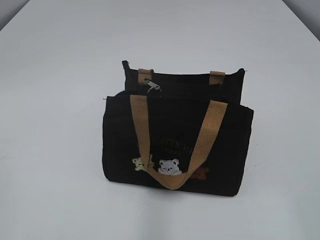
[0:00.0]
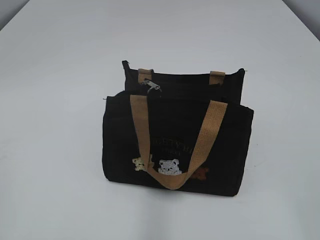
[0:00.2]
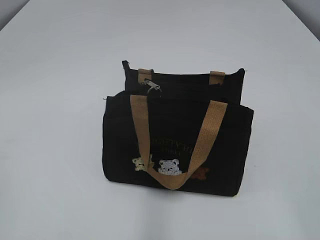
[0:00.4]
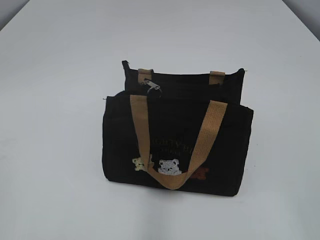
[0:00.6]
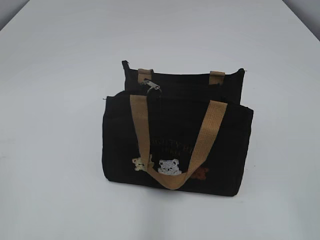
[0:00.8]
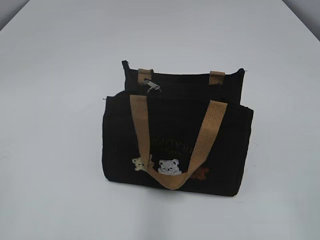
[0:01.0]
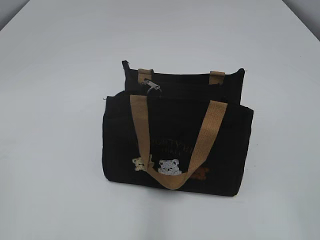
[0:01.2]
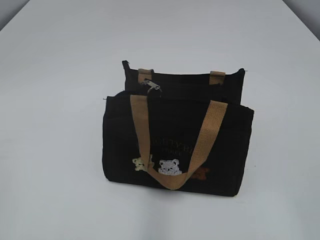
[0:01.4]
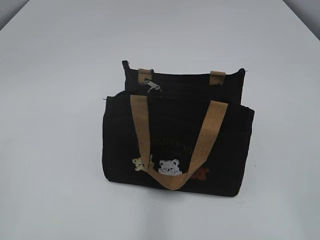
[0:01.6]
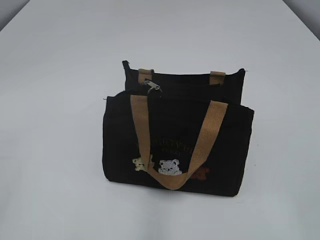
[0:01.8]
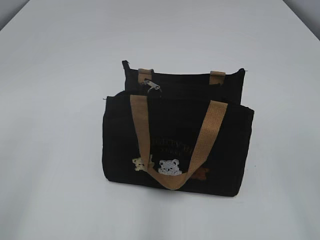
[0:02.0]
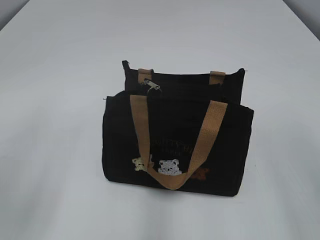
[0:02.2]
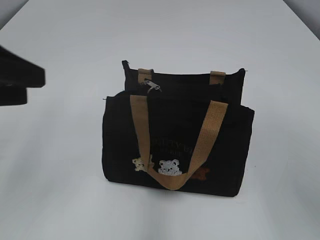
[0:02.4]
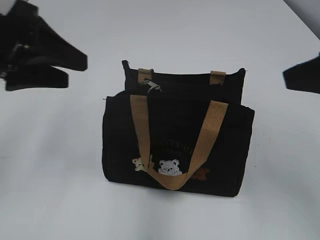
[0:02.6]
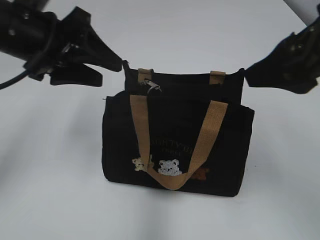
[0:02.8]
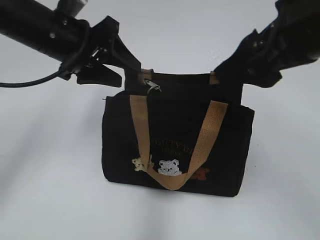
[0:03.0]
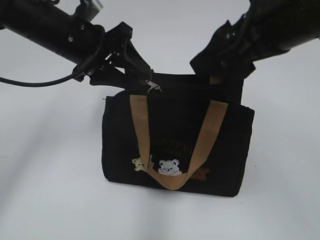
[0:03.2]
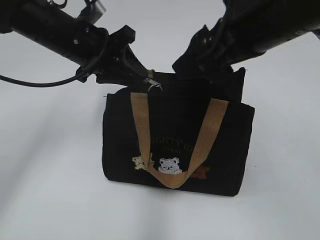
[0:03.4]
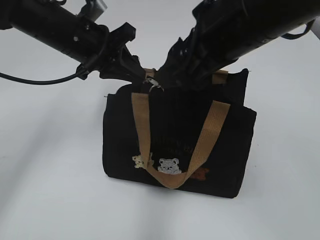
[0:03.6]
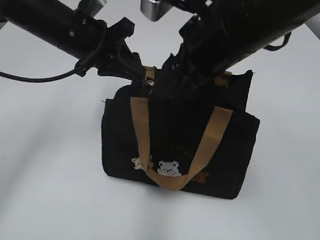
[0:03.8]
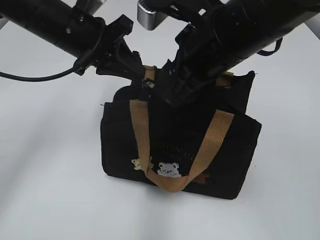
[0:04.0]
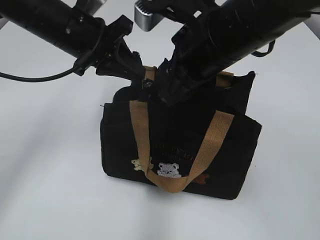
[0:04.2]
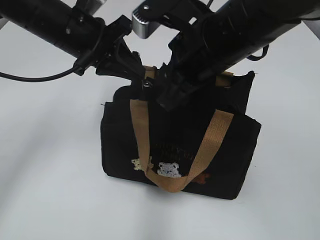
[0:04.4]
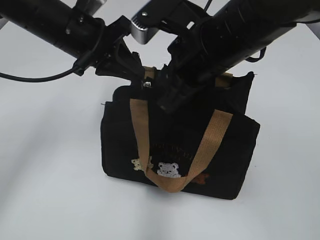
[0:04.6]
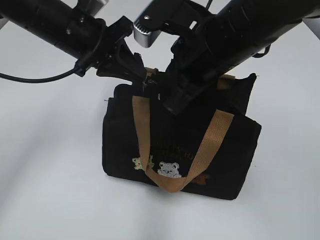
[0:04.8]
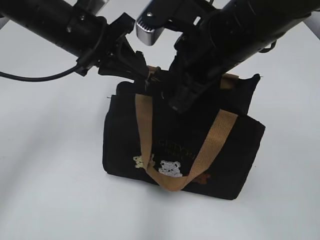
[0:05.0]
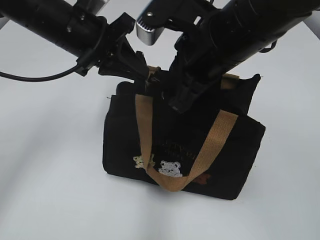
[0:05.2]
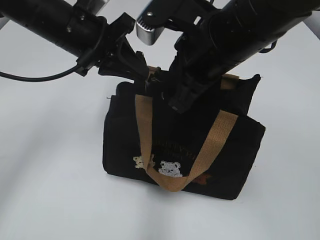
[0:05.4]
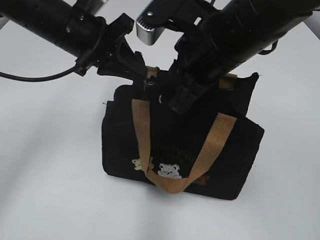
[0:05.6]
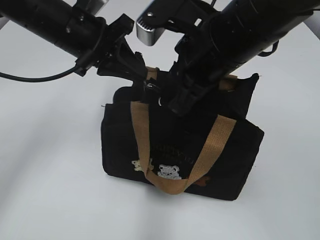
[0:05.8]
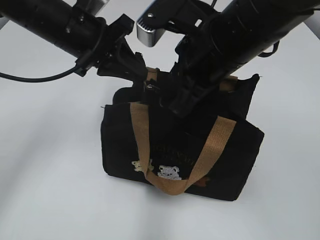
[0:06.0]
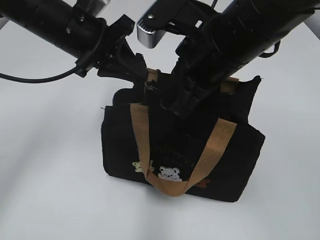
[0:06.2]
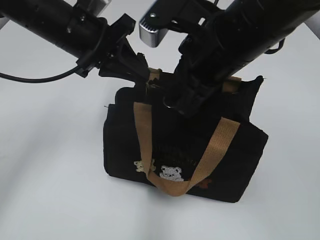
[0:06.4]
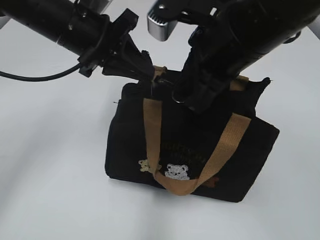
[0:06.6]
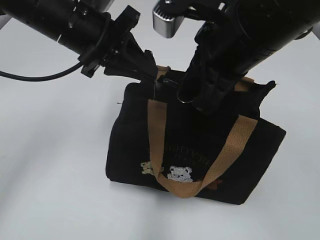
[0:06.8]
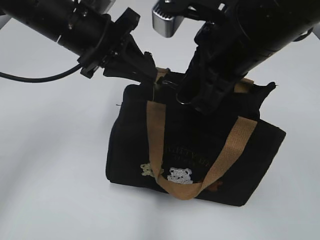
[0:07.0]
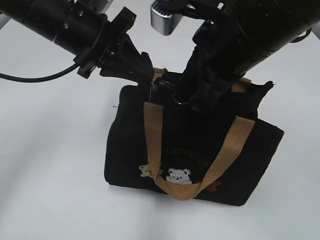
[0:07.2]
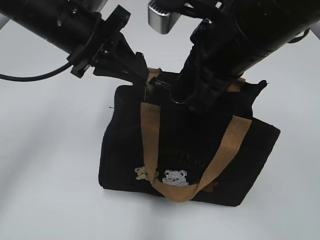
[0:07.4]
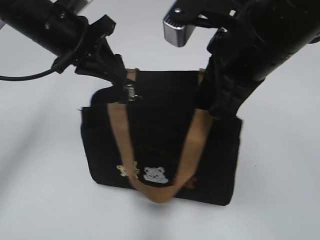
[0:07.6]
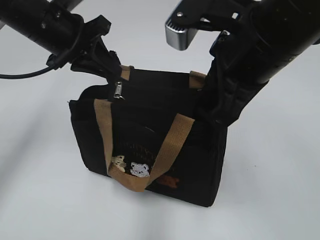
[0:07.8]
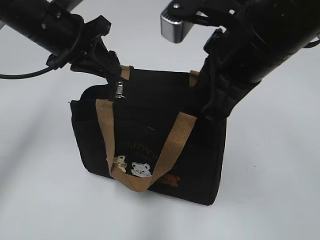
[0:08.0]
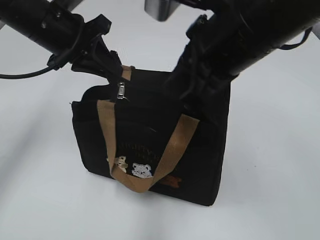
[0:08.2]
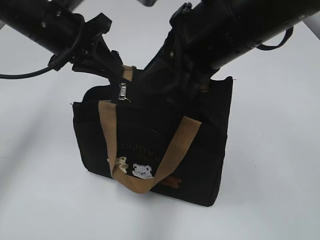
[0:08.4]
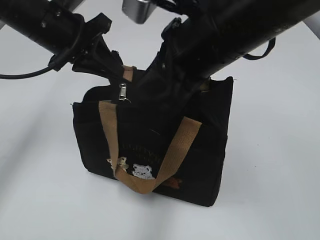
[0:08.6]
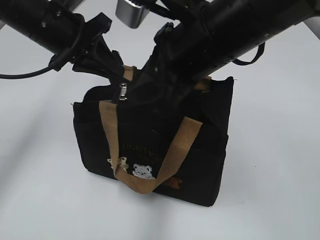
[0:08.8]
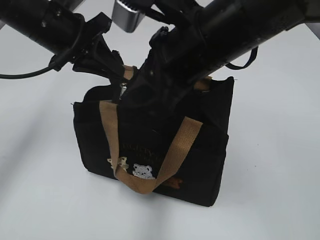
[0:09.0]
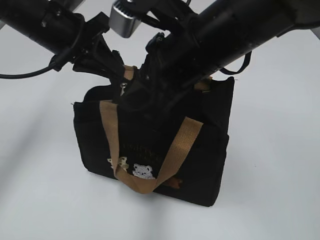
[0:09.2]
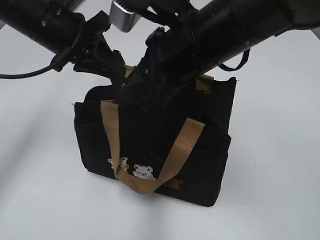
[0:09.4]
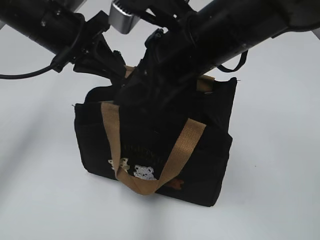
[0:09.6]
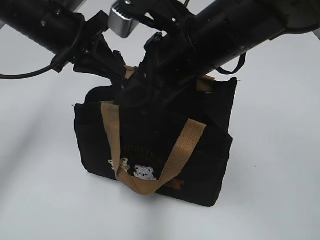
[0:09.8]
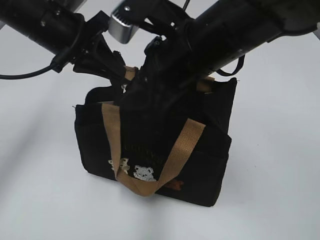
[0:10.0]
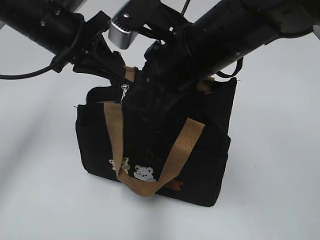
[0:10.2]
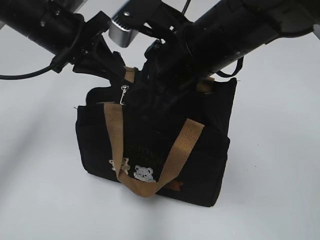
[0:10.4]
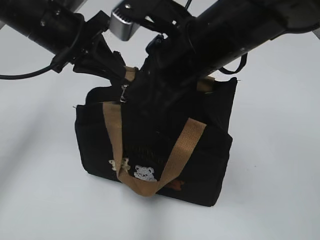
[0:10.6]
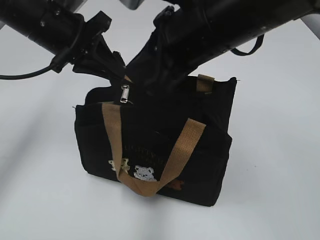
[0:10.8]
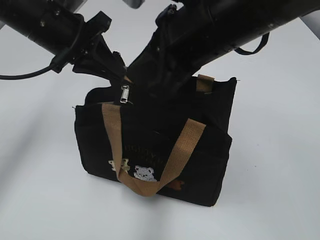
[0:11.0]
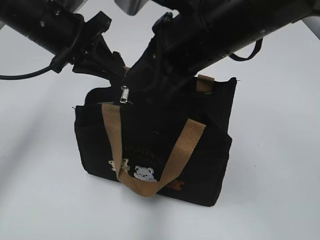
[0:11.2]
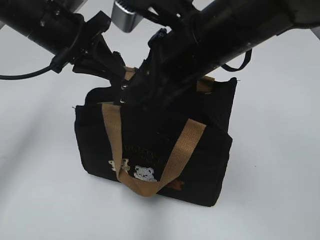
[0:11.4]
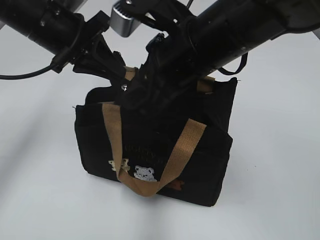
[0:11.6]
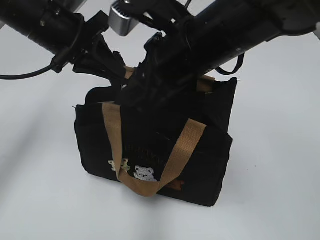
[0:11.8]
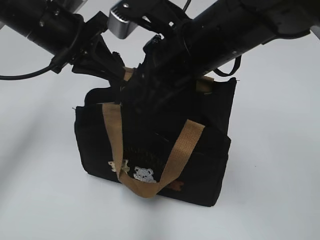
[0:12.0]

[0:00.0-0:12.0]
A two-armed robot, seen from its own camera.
0:01.6 to 0:03.0: The right gripper goes approximately 25 cm forward and to the left. Meanwhile the left gripper shifts about 35 cm forward and to the right, and opens its fingers.
0:03.0 to 0:04.4: The right gripper moves to the left and downward, some 10 cm, and closes its fingers; the left gripper closes.
0:04.4 to 0:06.0: The right gripper closes its fingers.
0:09.0 to 0:10.4: The grippers move only a little.
0:10.4 to 0:12.0: The right gripper opens.

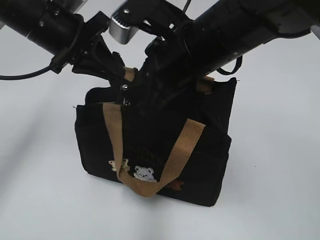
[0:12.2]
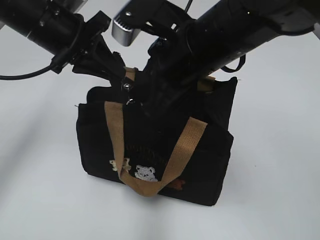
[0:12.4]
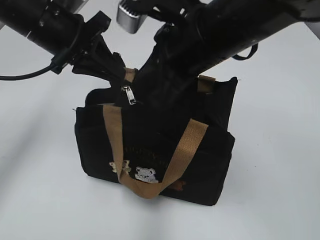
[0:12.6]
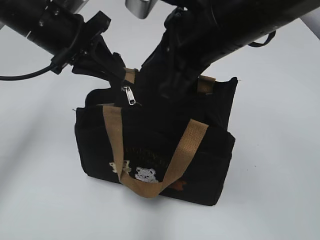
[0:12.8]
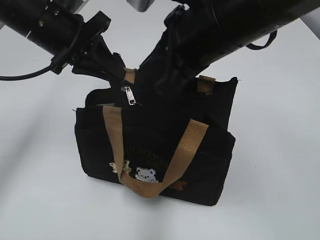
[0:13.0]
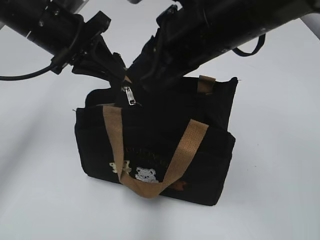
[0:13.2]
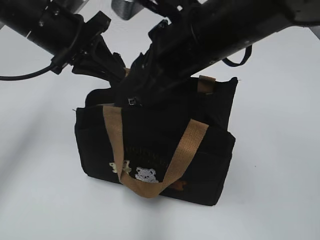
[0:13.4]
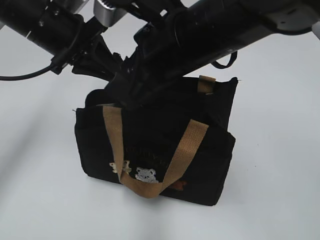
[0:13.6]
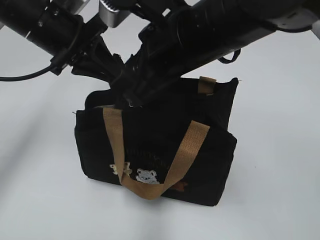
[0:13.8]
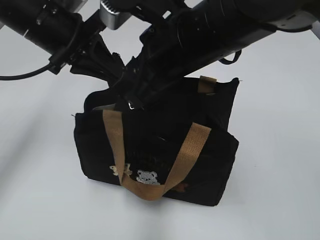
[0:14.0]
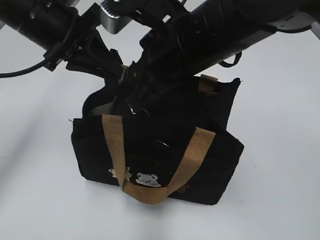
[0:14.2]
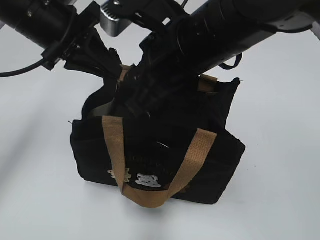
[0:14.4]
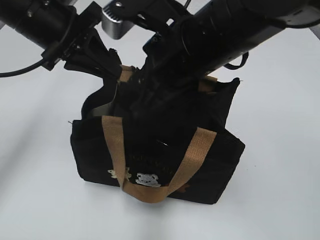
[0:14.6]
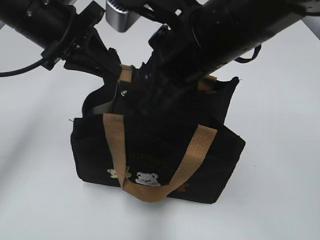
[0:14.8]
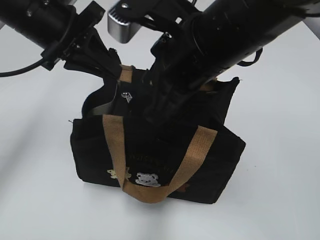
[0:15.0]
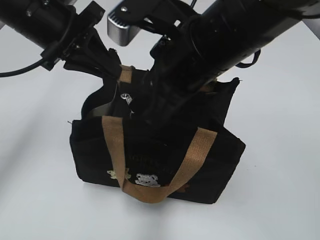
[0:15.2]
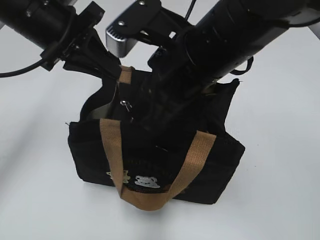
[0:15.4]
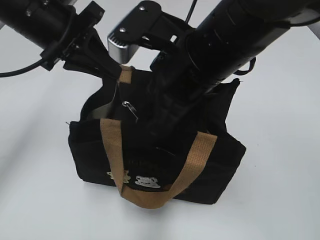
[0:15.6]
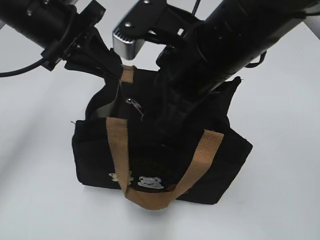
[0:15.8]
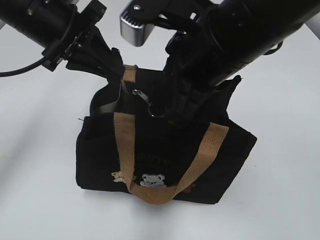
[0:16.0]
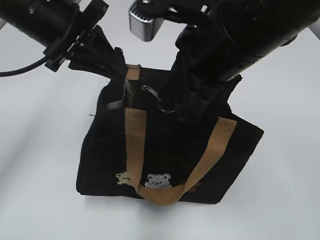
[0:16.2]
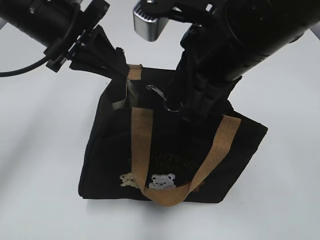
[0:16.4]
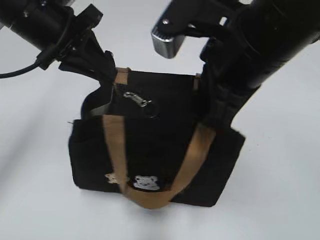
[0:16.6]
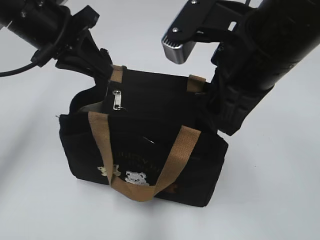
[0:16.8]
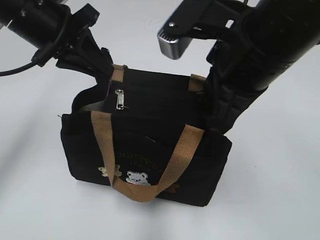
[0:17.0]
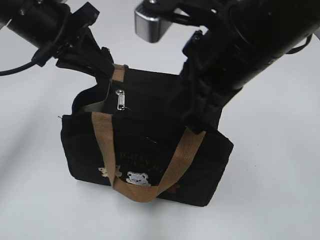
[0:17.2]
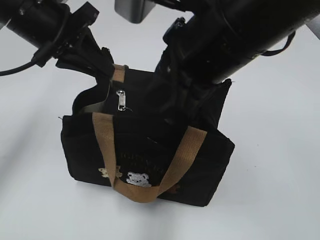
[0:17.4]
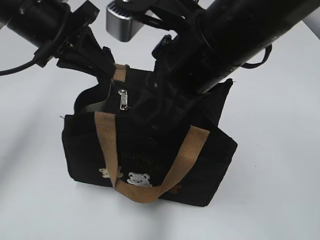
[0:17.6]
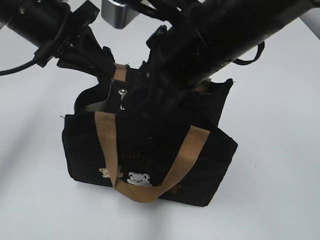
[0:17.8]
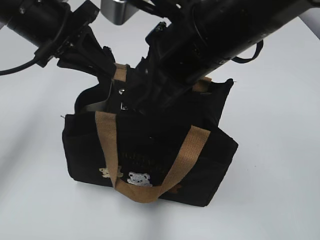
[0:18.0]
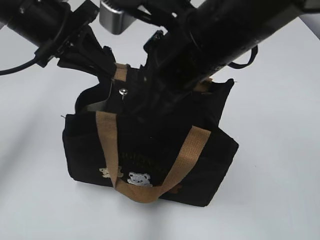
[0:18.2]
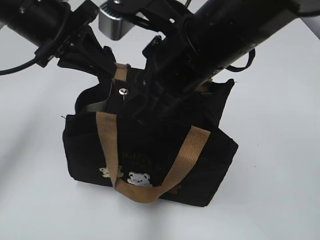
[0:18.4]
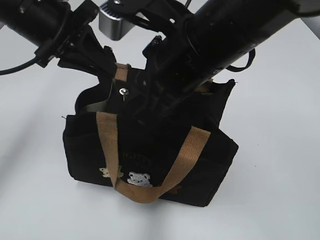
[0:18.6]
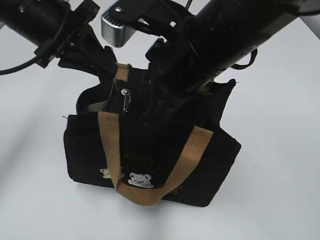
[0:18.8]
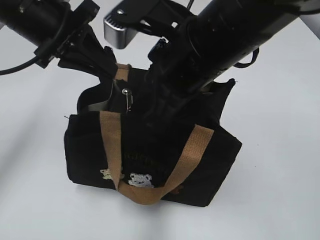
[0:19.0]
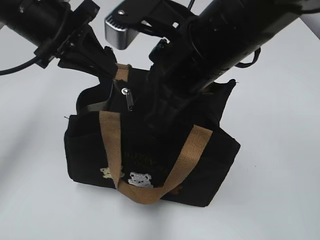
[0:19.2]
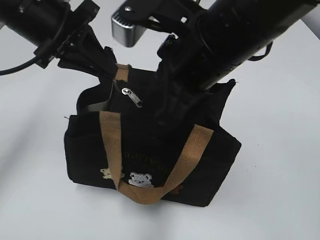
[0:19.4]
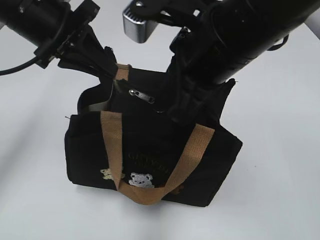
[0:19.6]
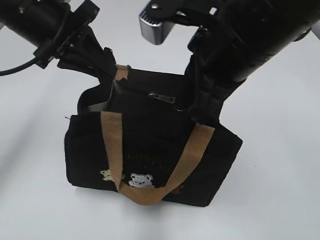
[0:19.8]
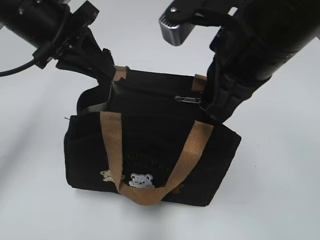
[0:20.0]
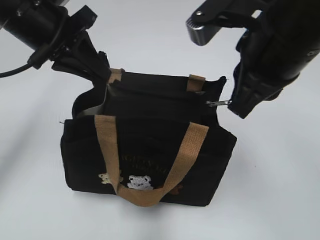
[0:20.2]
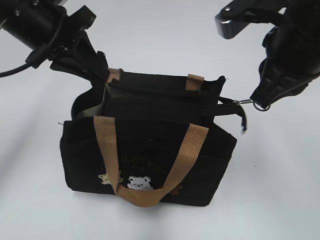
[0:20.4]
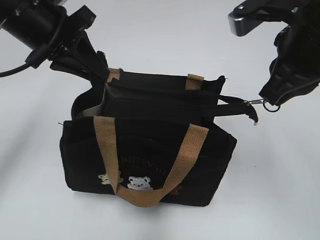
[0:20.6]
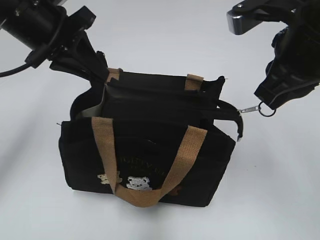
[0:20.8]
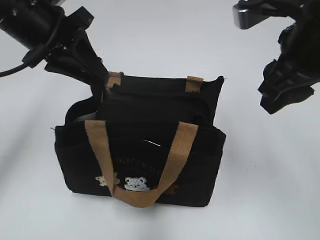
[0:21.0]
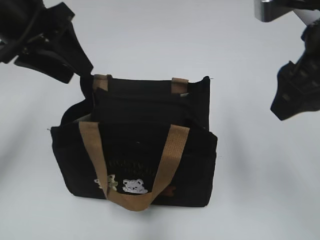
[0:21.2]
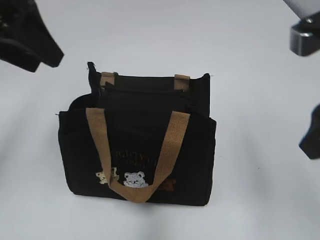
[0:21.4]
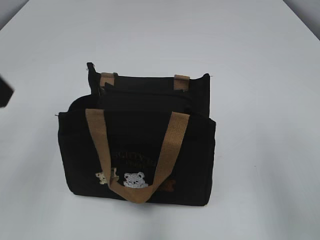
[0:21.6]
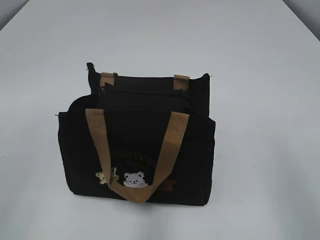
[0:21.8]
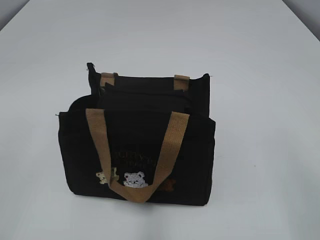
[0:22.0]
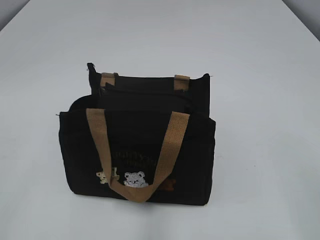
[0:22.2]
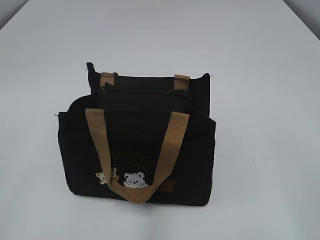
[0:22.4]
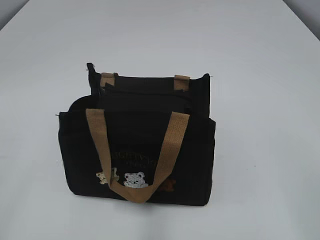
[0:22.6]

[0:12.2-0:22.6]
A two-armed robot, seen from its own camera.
Step, 0:12.2 to 0:20.8: Pull open the zipper with your right hand.
0:12.2 to 0:13.6: The right gripper opens up.
0:13.6 to 0:15.2: The grippers make only small movements.
0:15.2 to 0:16.6: The right gripper closes its fingers.
0:16.6 to 0:18.2: The right gripper opens up.
0:18.2 to 0:19.6: The right gripper closes.
0:19.6 to 0:21.2: The left gripper opens up. Meanwhile the right gripper travels to the right by about 10 cm, and opens its fingers.
0:21.2 to 0:22.6: The right gripper travels backward and to the right by roughly 25 cm, while the left gripper travels backward and to the left by roughly 35 cm.
